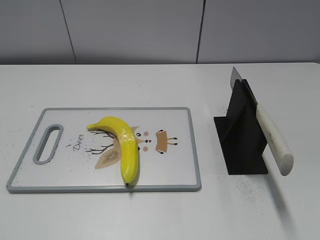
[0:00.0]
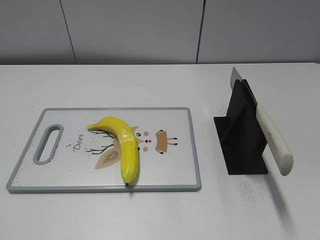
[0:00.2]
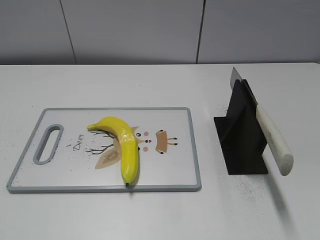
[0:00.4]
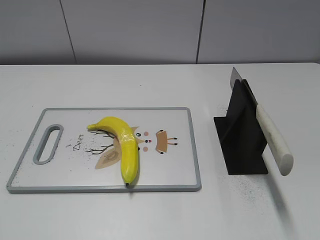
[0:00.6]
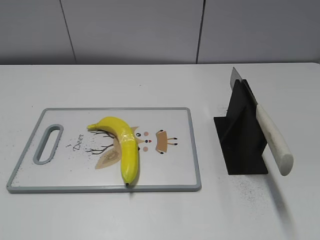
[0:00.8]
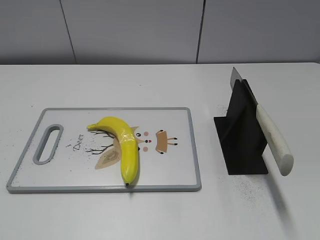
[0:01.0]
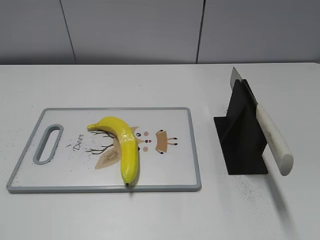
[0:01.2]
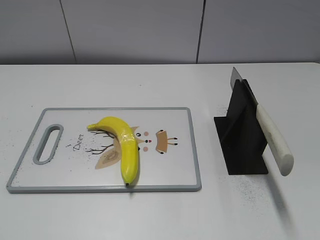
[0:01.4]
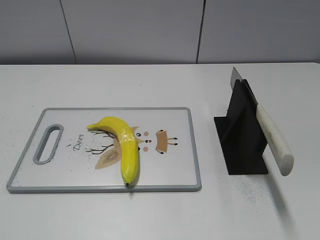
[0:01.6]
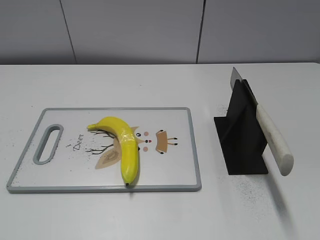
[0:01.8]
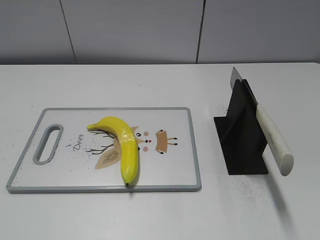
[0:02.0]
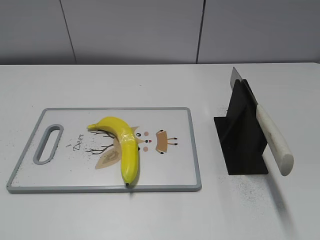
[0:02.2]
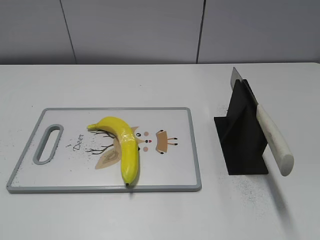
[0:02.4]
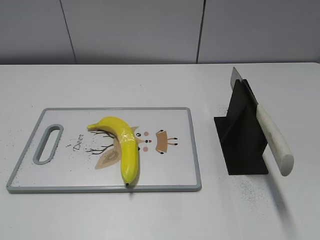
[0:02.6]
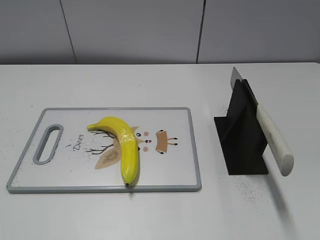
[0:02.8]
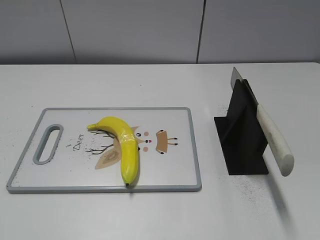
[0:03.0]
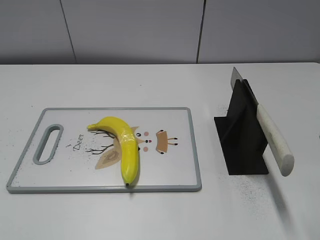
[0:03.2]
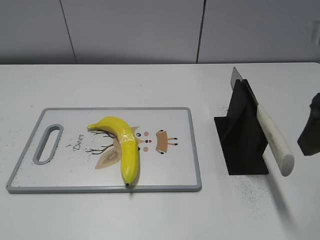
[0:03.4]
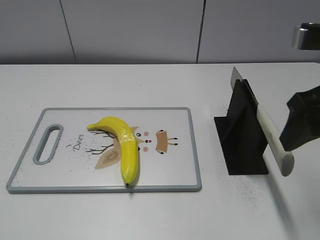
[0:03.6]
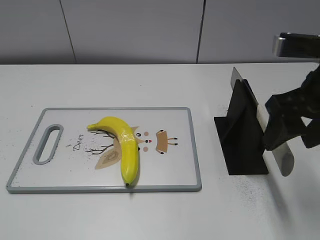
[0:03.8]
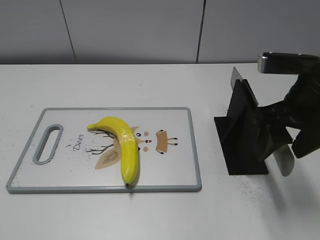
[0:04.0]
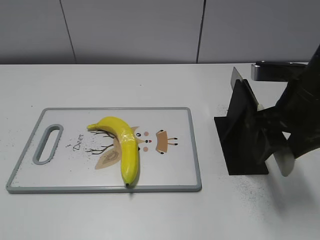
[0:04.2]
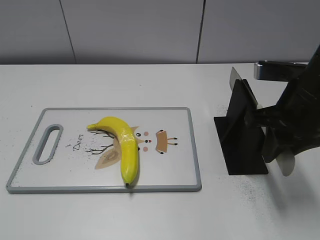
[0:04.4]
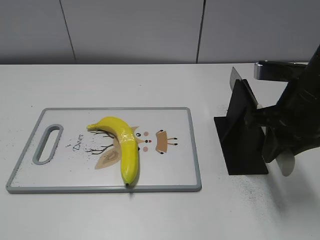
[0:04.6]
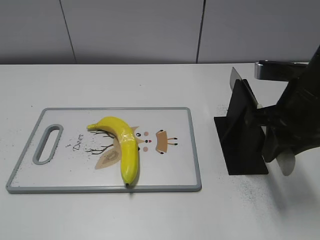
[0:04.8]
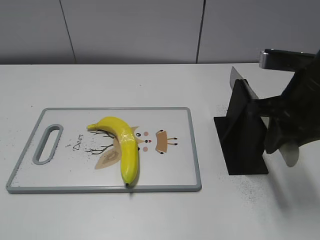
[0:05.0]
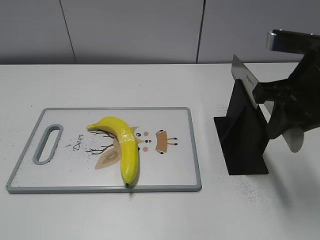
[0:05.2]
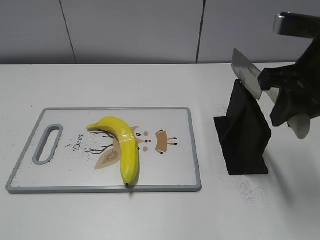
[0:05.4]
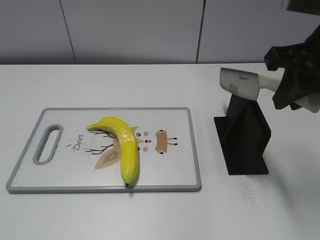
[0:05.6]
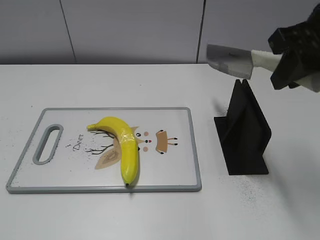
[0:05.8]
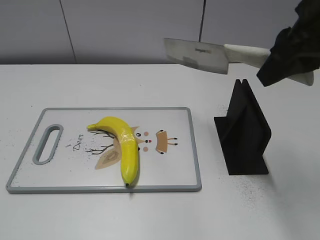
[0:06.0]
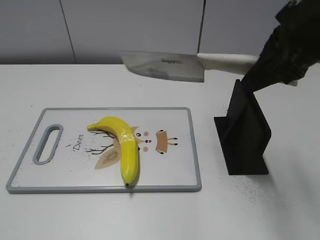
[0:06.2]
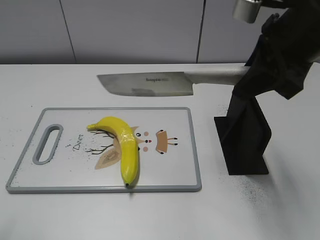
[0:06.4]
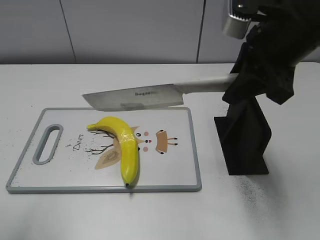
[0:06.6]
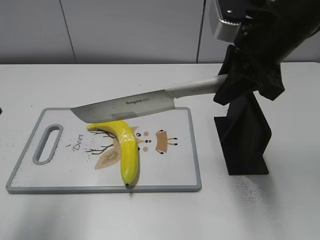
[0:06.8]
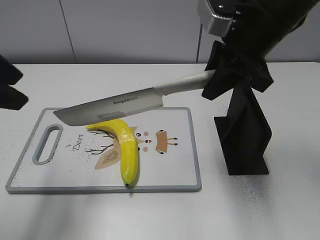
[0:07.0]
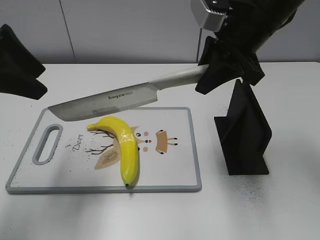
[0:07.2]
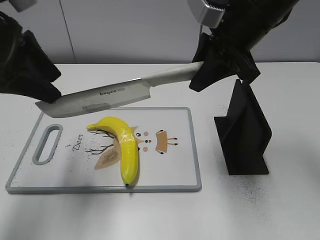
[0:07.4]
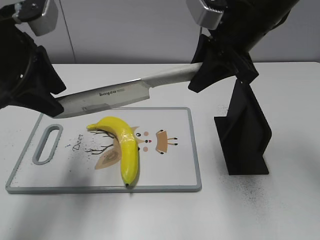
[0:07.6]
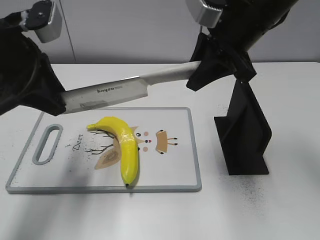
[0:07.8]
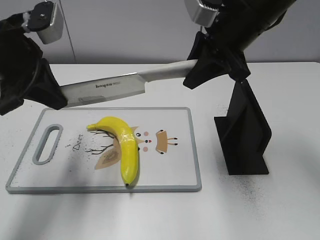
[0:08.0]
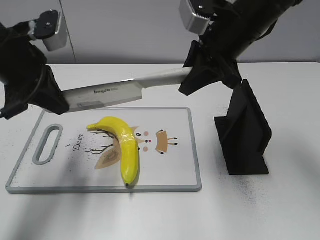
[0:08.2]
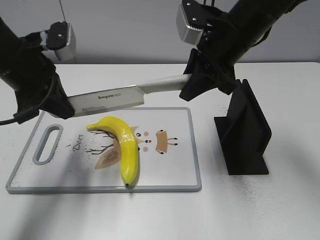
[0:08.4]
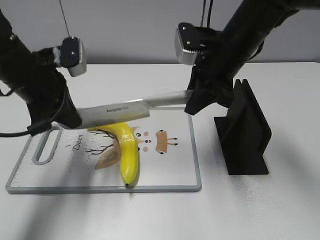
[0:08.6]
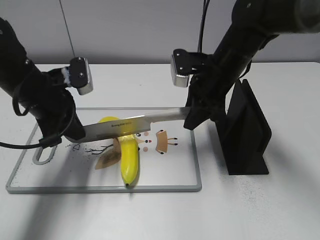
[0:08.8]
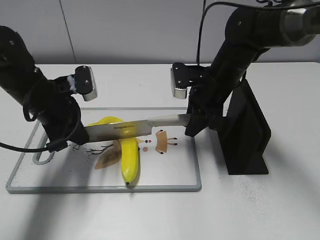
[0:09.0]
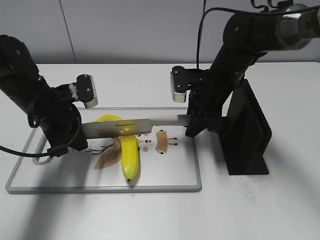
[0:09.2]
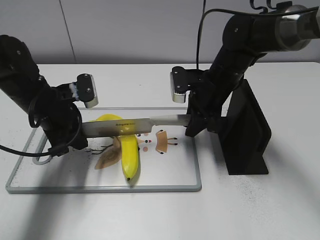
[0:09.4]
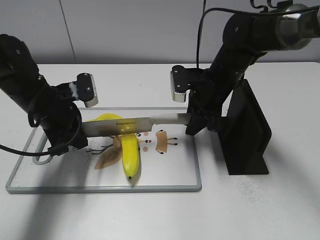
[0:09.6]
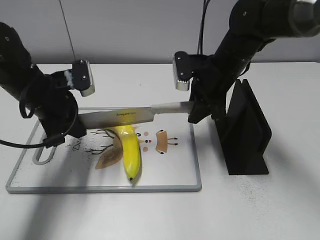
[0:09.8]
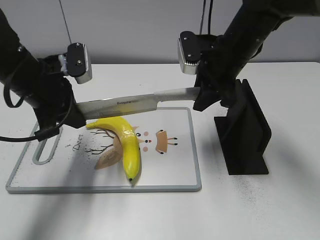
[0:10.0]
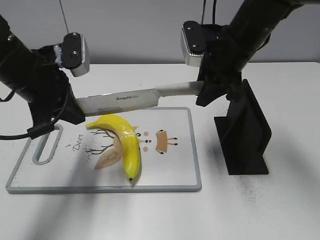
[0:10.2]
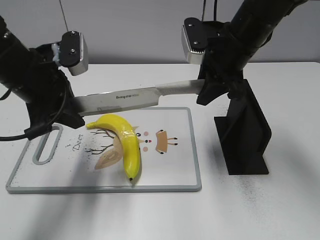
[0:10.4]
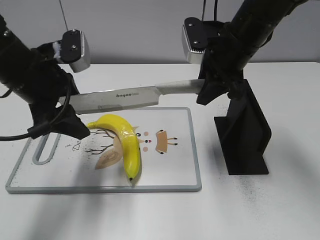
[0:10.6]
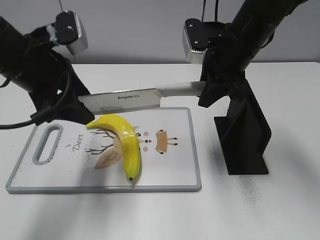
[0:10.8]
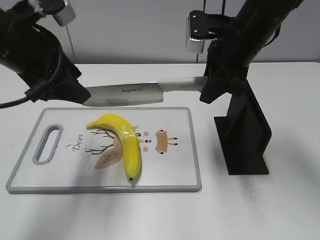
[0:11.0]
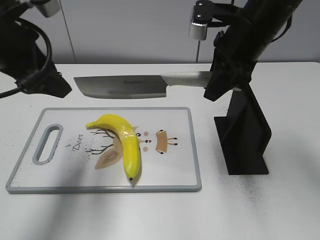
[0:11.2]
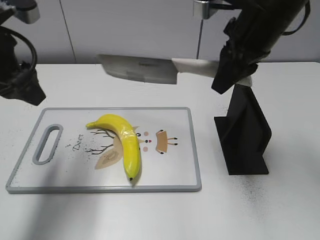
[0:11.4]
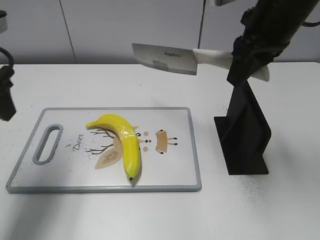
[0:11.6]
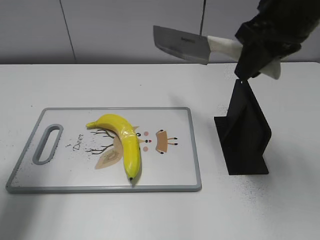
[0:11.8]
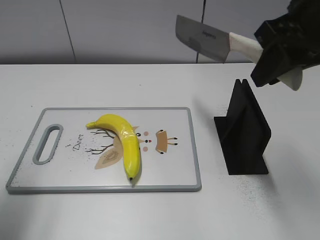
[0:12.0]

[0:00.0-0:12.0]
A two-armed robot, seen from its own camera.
Task of the whole recording: cut plastic banana.
Step, 0:00.0 to 0:05.2: Grab the knife handle with your right hand.
Step, 0:05.6 to 0:10.0: Lift the knife with your right hand.
Step, 0:10.2 to 0:11.2: Cut the banana with your right hand.
0:03.0 to 0:04.4: The right gripper is displaced forward, downward and to the left by some 15 cm, and closes up.
0:04.4 to 0:06.0: The right gripper goes roughly 10 cm upward.
0:06.0 to 0:07.6: The right gripper is displaced forward, to the left and downward by some 10 cm, while the left gripper shifts roughly 30 cm forward.
0:07.6 to 0:09.0: The grippers both shift downward by some 15 cm. The left gripper closes its fingers.
0:09.0 to 0:10.4: The two grippers go roughly 10 cm upward.
0:10.4 to 0:12.0: The right gripper heads backward, upward and to the right, covering roughly 15 cm, while the left gripper heads to the left, backward and upward, covering approximately 15 cm, and opens its fingers.

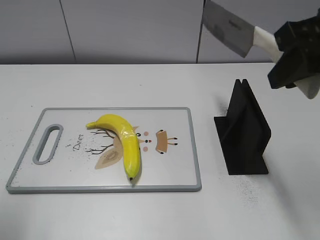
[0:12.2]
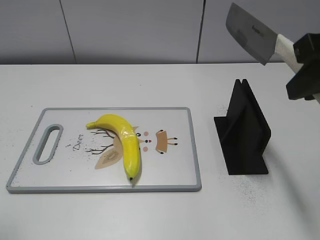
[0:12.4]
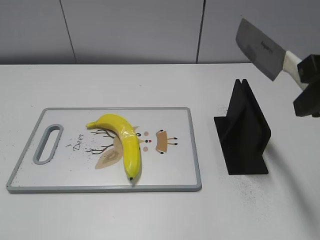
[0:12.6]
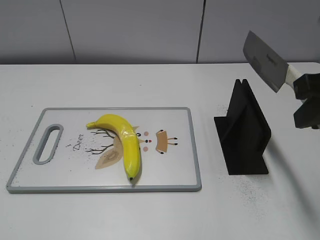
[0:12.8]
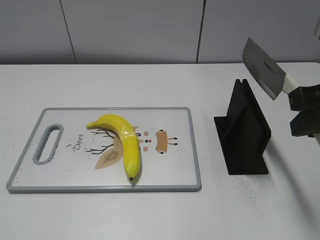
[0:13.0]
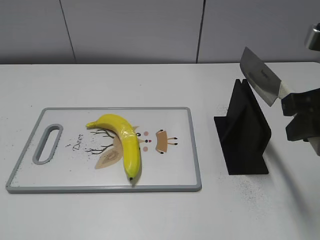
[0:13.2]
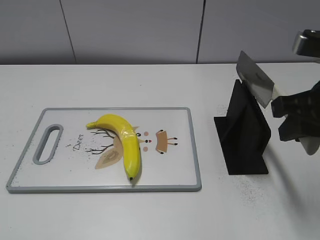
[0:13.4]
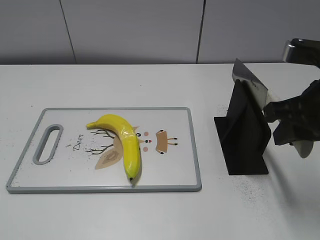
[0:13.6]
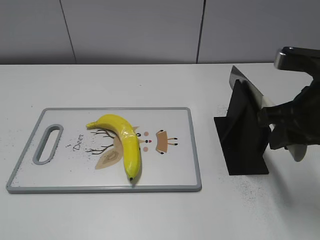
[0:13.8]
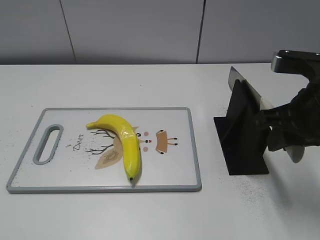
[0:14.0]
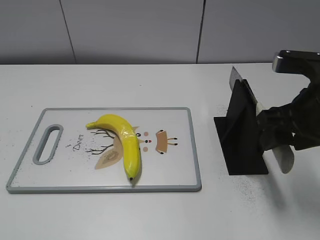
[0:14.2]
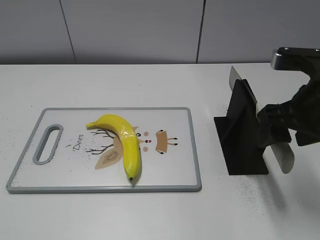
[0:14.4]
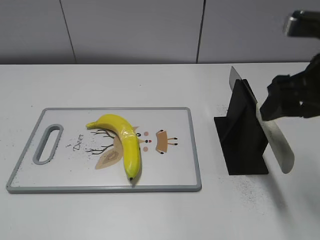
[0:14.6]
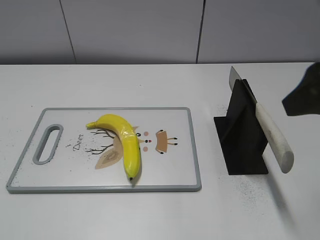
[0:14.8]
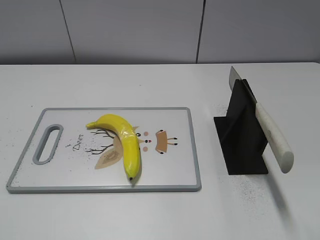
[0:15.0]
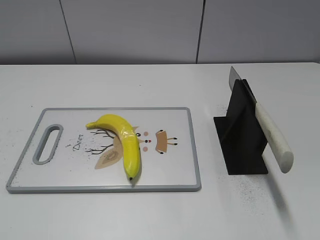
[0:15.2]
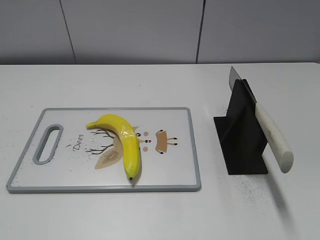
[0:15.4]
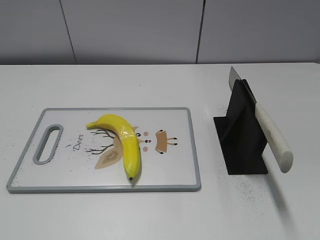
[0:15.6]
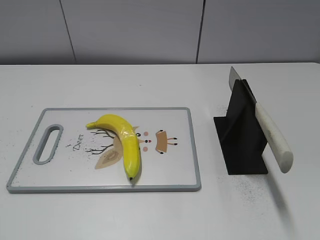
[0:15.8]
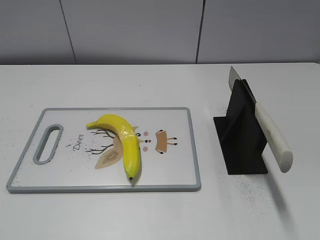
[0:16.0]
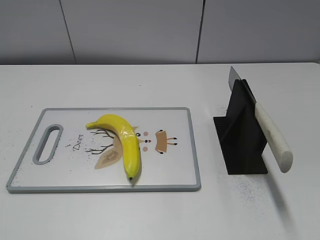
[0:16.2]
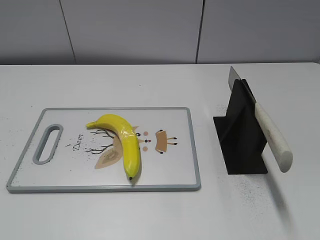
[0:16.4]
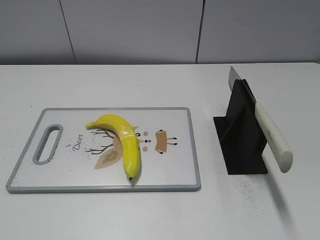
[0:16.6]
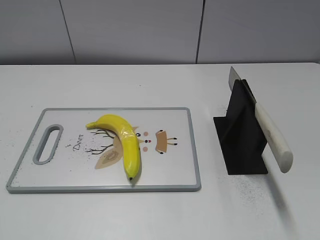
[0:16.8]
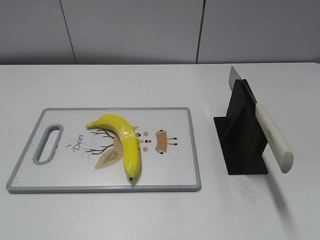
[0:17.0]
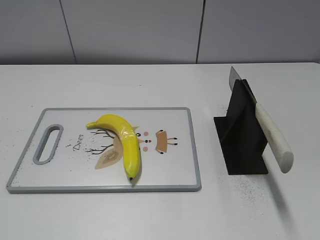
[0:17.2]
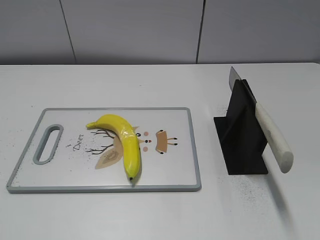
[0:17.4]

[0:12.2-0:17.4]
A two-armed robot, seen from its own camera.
Task of the whole recording: cut plastic banana.
Step, 0:13.0 to 0:17.4: Place the knife on the storage rack with your right hand.
0:12.2 to 0:14.0: The right gripper moves downward, approximately 10 cm, while the left gripper goes some 15 cm backward.
0:14.0 to 0:15.6: The right gripper goes roughly 20 cm backward, and opens its fingers.

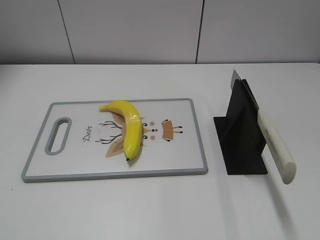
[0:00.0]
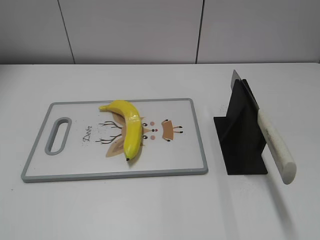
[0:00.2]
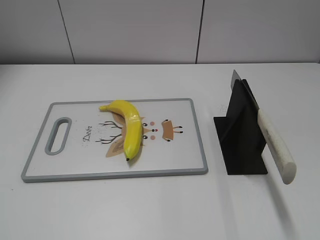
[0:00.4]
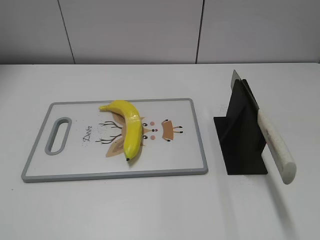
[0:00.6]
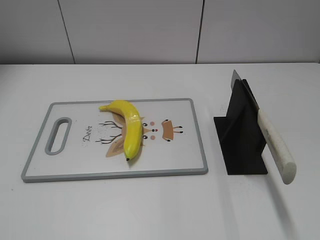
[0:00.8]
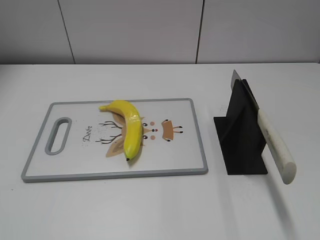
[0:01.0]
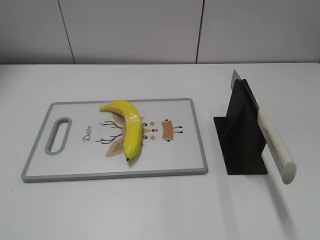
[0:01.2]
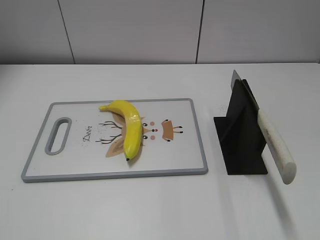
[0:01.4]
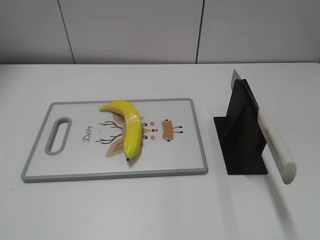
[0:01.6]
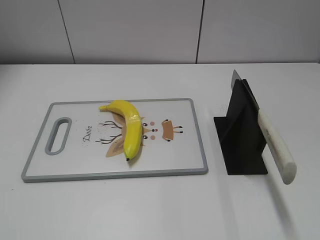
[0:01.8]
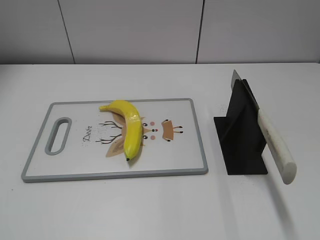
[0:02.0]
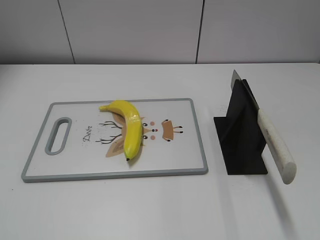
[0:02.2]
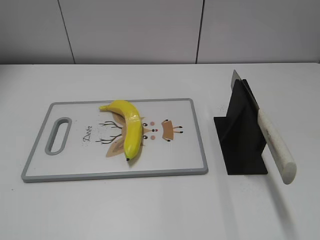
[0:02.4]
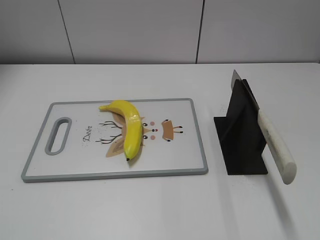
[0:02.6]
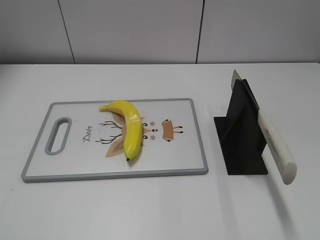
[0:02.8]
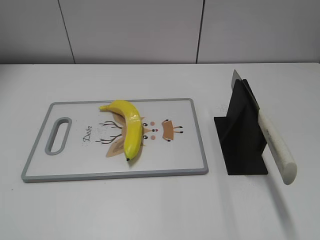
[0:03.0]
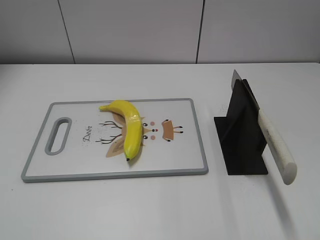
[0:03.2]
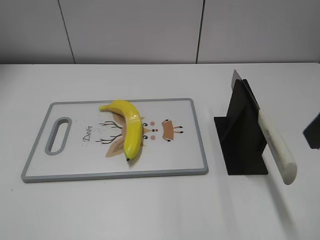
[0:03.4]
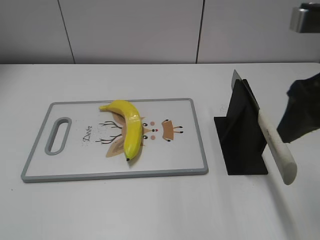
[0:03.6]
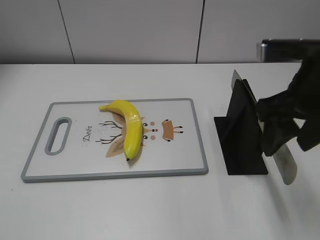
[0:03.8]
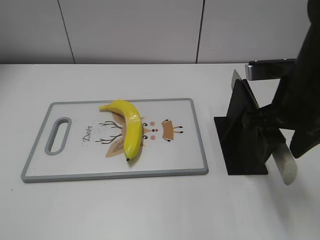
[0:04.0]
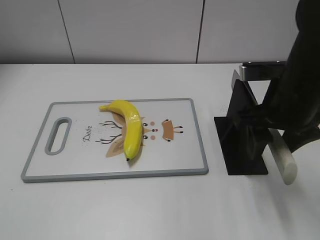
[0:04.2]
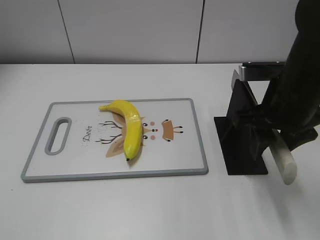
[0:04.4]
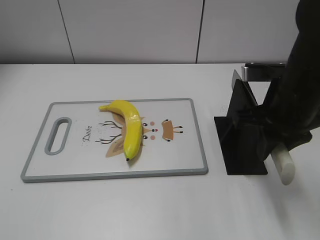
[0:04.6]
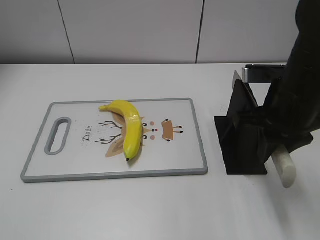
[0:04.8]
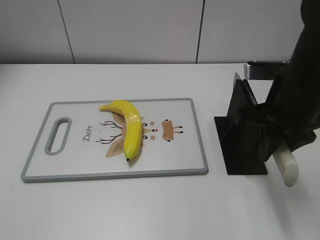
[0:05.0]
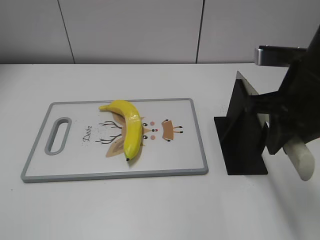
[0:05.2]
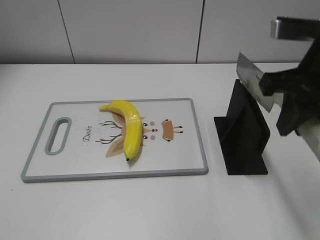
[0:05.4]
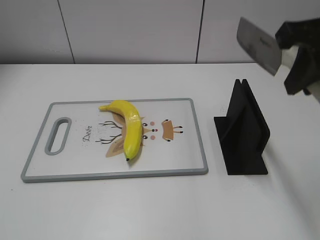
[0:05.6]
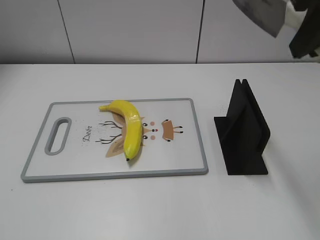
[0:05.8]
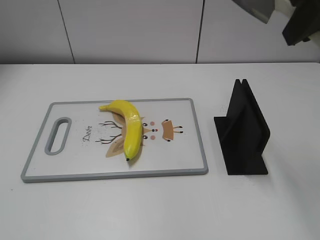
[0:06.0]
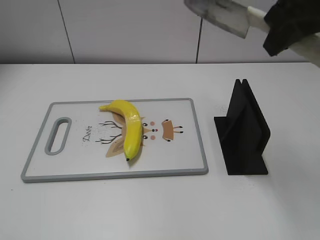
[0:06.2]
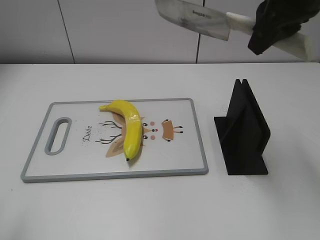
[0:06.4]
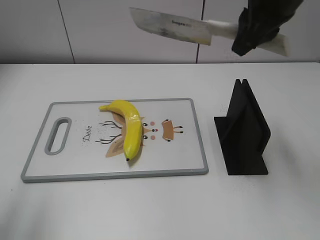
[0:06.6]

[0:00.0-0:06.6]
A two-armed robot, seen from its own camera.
Task of the whole recording: cut plastic banana.
Step, 0:00.0 to 0:05.6: Grab the knife handle with your right hand.
0:03.2 to 0:05.0: The right gripper shifts roughly 20 cm forward, downward and to the left, and closes up.
0:05.0 to 0:06.6: The right gripper moves upward and forward, roughly 15 cm. The left gripper heads forward and upward, covering roughly 20 cm.
